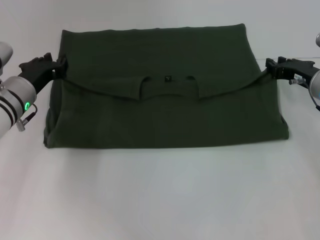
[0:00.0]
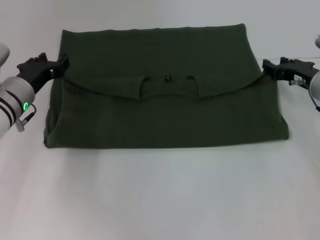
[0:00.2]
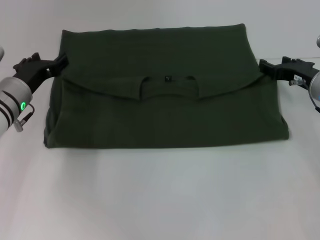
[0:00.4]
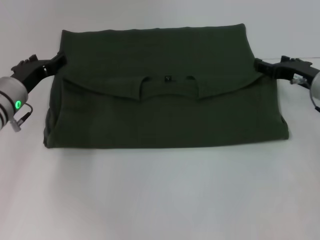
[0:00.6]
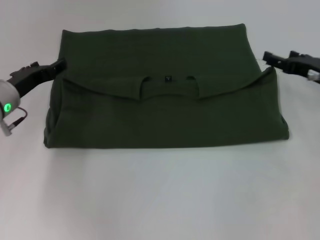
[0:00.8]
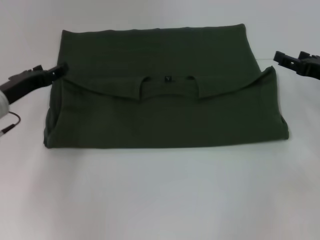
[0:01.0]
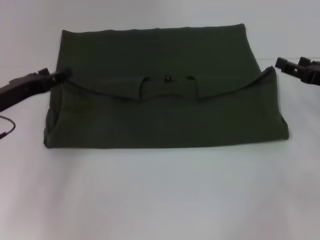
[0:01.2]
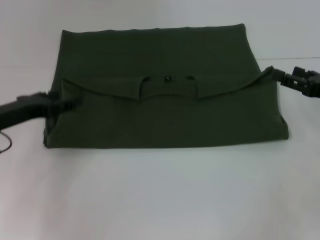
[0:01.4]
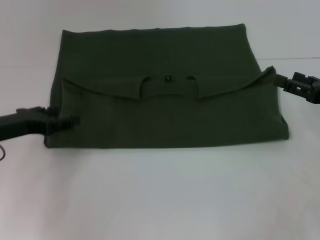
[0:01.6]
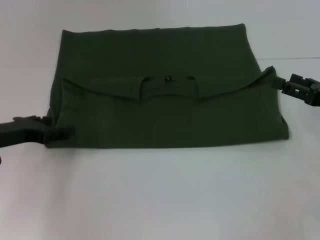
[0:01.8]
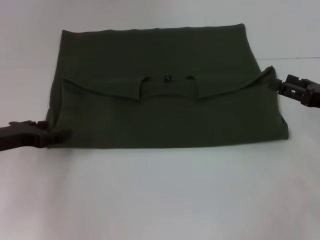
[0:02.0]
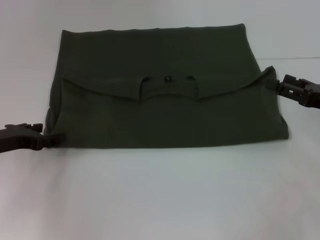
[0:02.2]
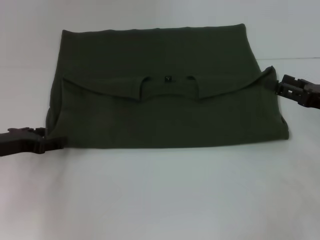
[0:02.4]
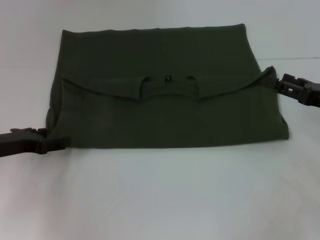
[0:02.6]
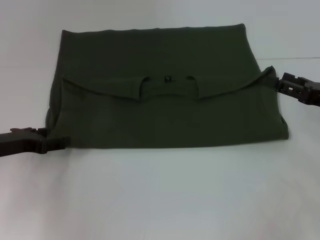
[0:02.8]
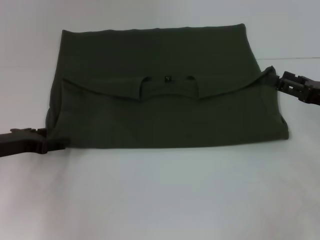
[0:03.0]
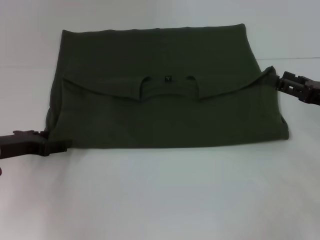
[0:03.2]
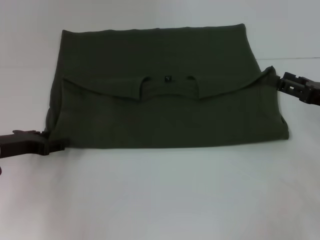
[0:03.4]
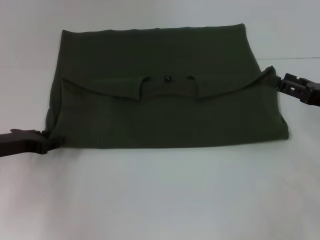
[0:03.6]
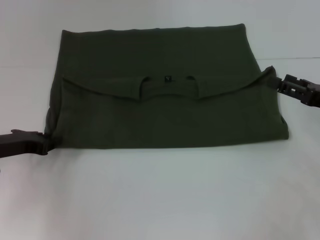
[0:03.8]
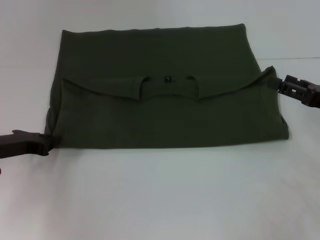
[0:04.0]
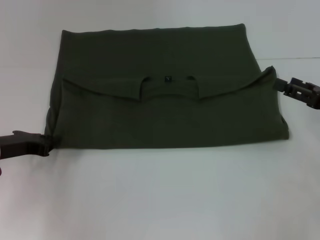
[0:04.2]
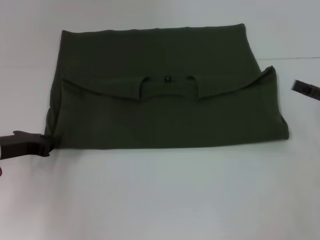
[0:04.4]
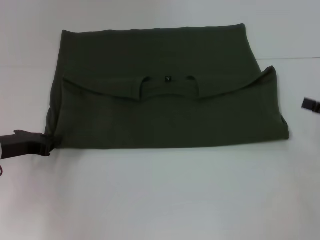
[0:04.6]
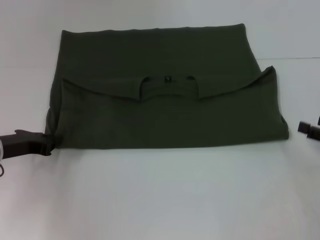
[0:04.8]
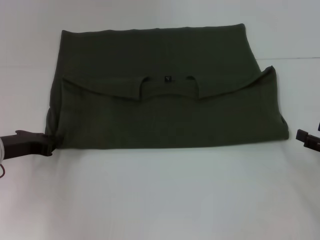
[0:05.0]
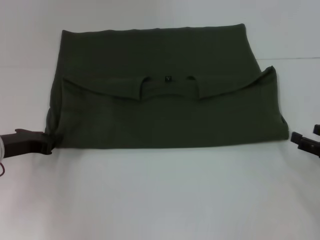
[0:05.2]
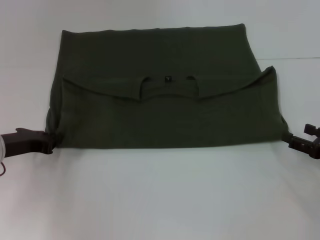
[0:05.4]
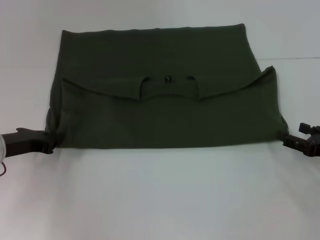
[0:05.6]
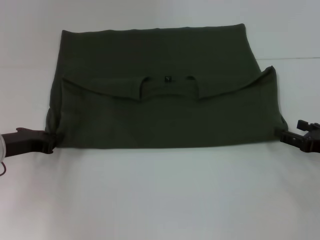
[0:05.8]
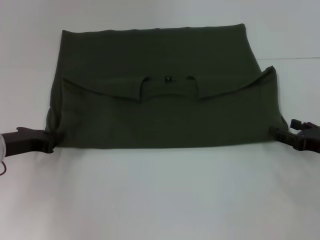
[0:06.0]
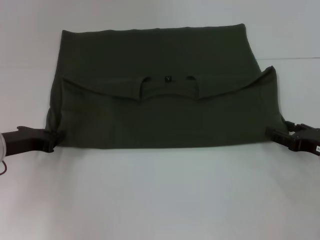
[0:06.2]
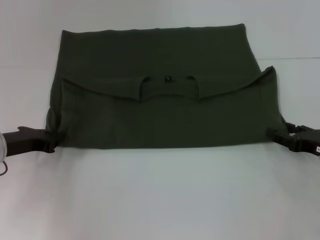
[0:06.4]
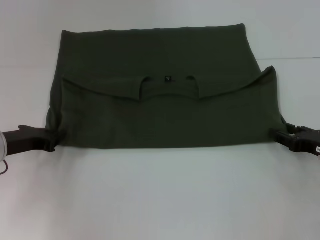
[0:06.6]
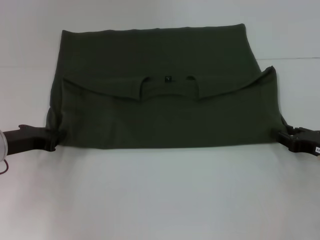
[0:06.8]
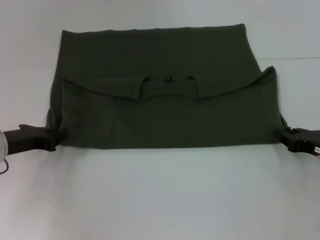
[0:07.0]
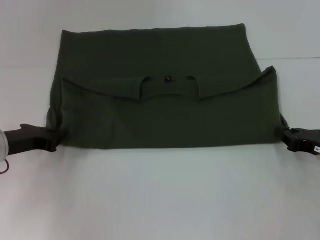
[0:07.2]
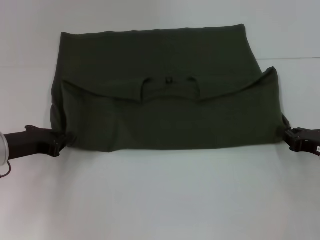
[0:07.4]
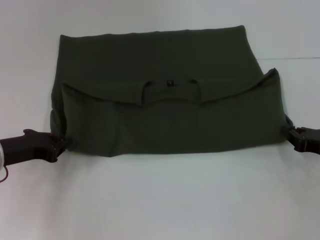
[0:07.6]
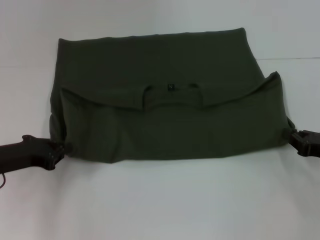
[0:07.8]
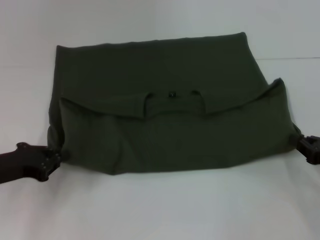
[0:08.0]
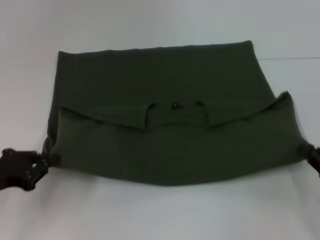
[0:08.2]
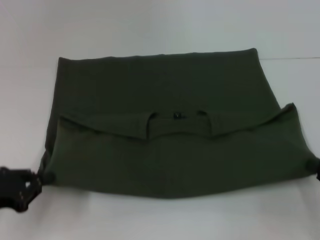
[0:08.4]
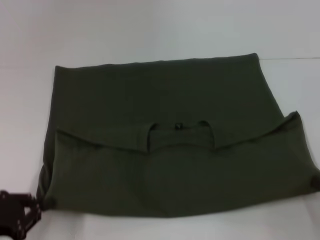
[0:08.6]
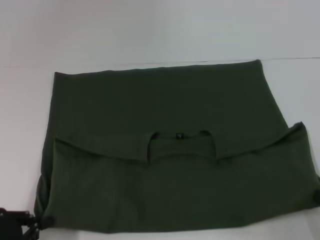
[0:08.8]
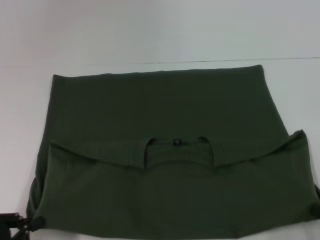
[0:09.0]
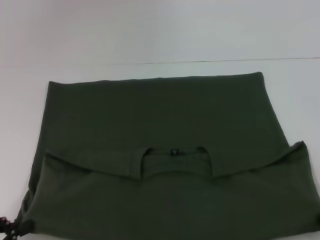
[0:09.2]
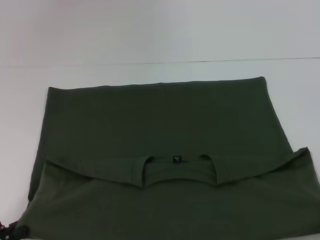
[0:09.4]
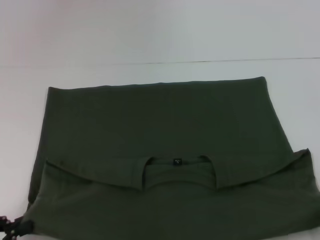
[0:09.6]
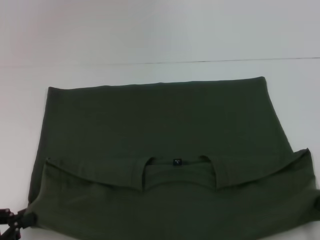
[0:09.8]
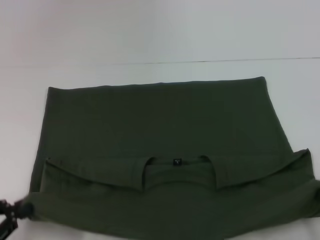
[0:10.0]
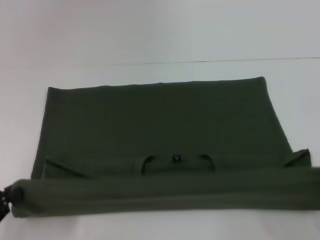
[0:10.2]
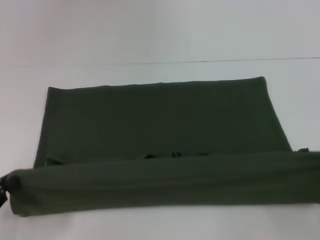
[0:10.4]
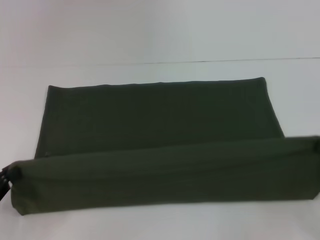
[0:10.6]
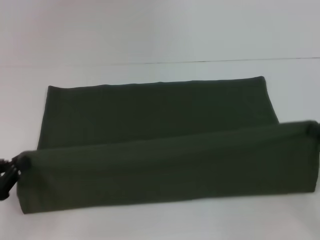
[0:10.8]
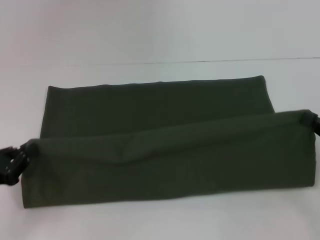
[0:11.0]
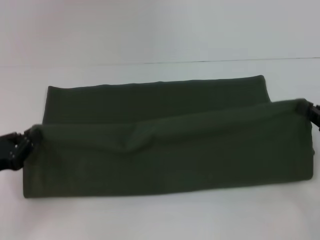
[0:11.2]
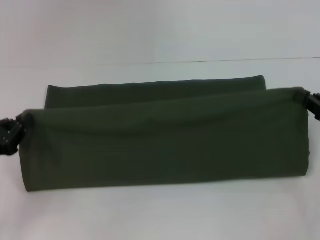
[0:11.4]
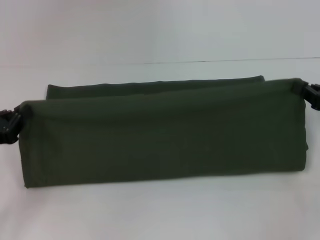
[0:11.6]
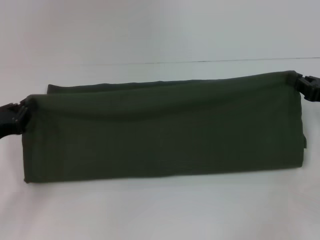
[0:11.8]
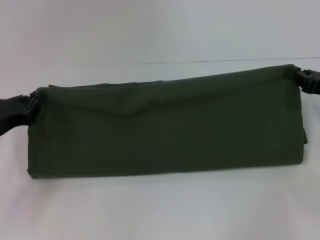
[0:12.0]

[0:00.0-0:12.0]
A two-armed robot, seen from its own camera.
Step, 0:00.2 to 0:09.2: Pull the clothes with your left hand.
Step, 0:00.2 to 0:09.2: Pull the clothes with your right hand.
0:00.0 to 0:01.6: The left gripper goes about 10 cm backward and to the left, and opens. The right gripper is displaced backward and to the right by some 10 cm, and opens its fingers.
0:01.6 to 0:03.0: There are only small adjustments of the grippers.
0:03.0 to 0:04.4: The left gripper closes.
0:04.4 to 0:06.0: The right gripper shifts about 5 cm downward.
0:06.0 to 0:07.6: The right gripper closes its fingers.
0:07.6 to 0:09.0: The two grippers go roughly 15 cm backward.
0:09.0 to 0:10.4: The right gripper shifts by some 5 cm.
0:10.4 to 0:12.0: Both grippers move forward, approximately 15 cm.

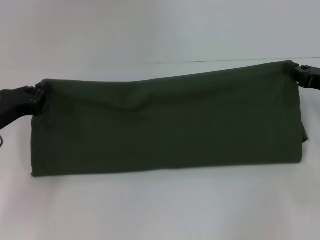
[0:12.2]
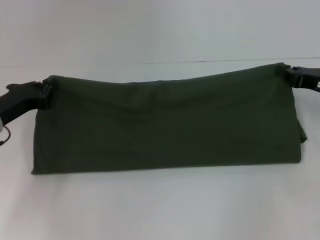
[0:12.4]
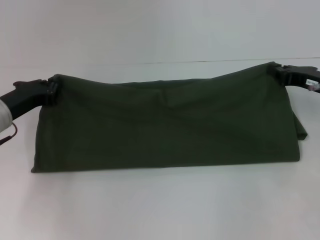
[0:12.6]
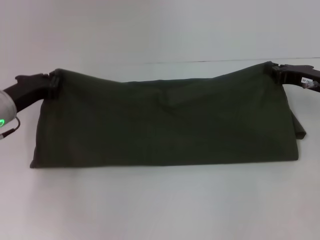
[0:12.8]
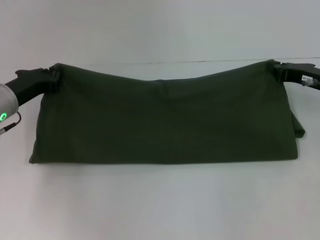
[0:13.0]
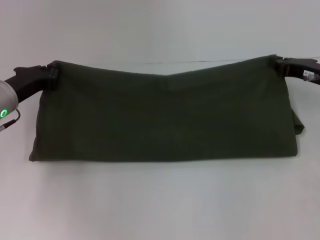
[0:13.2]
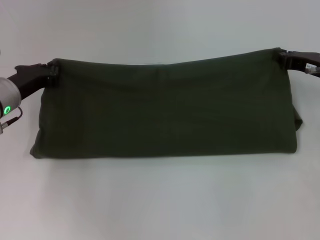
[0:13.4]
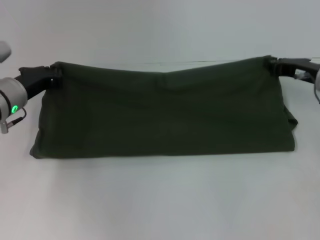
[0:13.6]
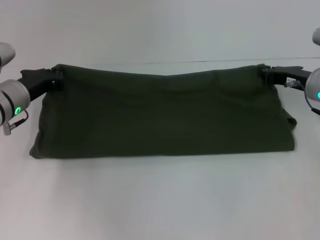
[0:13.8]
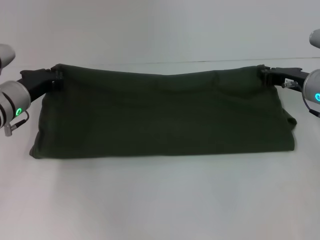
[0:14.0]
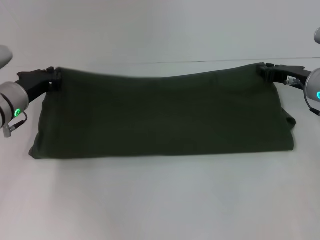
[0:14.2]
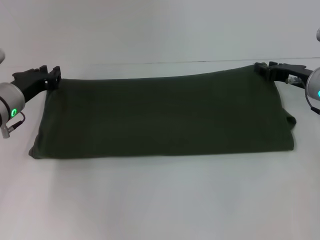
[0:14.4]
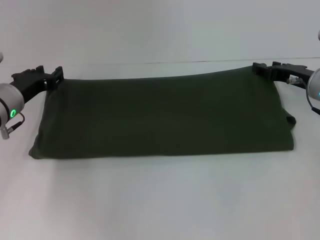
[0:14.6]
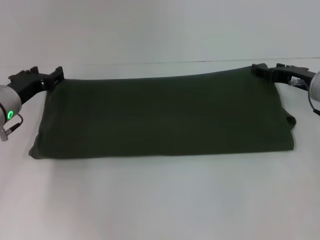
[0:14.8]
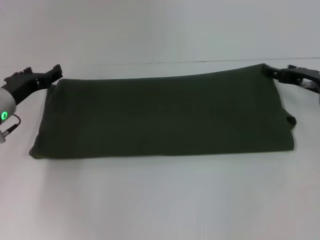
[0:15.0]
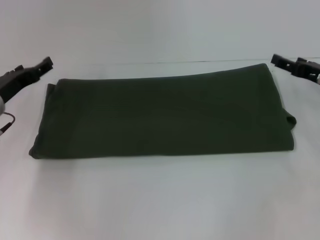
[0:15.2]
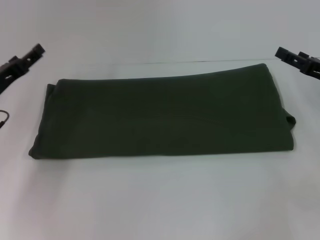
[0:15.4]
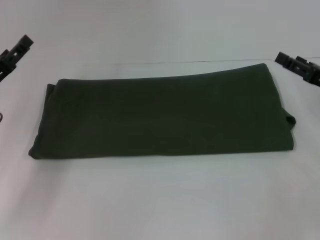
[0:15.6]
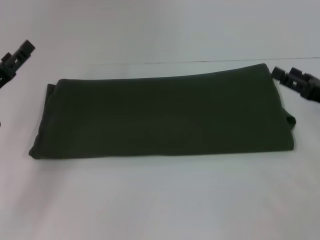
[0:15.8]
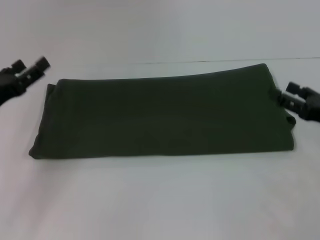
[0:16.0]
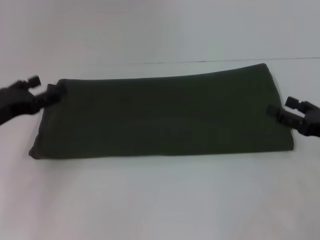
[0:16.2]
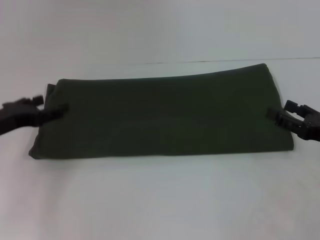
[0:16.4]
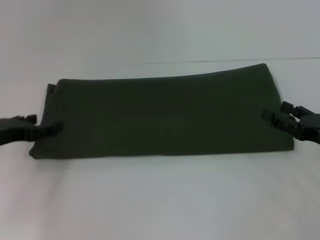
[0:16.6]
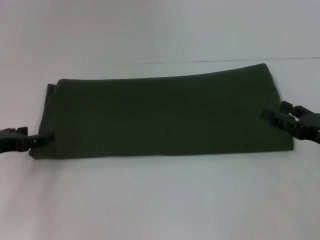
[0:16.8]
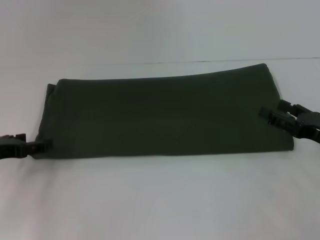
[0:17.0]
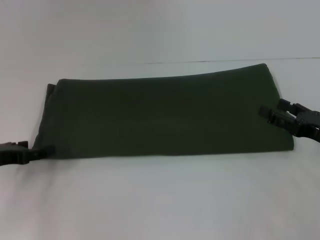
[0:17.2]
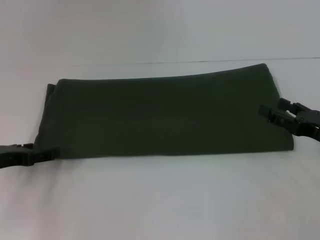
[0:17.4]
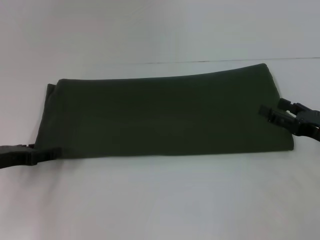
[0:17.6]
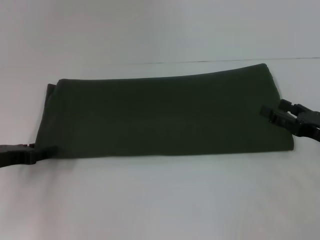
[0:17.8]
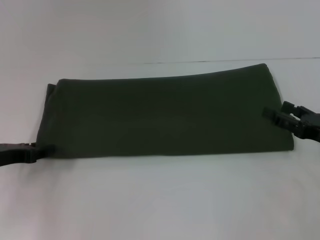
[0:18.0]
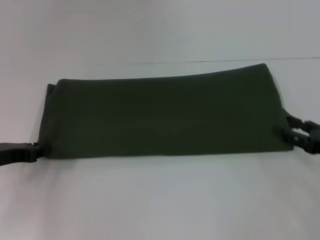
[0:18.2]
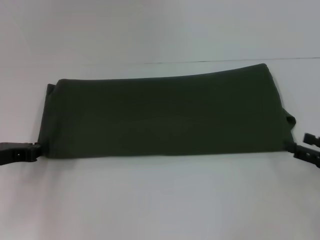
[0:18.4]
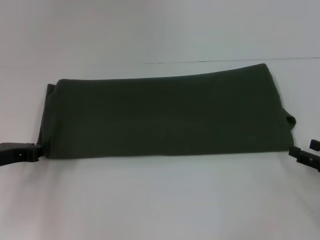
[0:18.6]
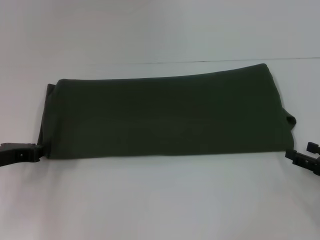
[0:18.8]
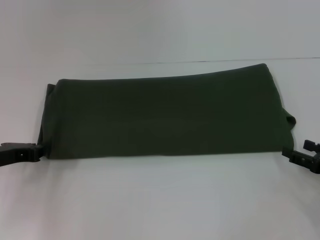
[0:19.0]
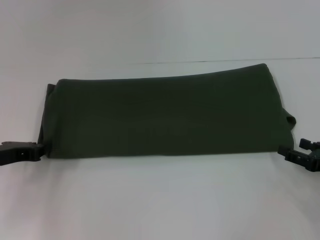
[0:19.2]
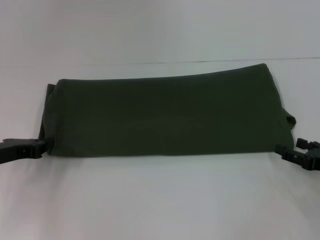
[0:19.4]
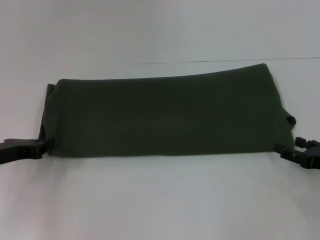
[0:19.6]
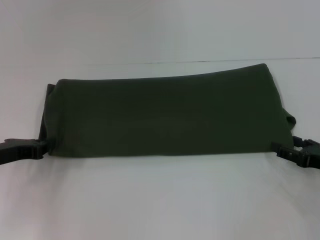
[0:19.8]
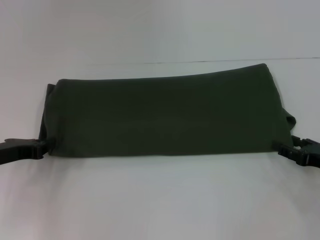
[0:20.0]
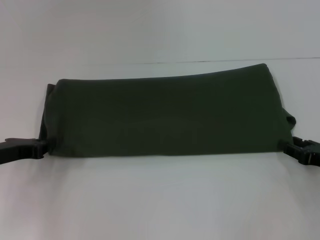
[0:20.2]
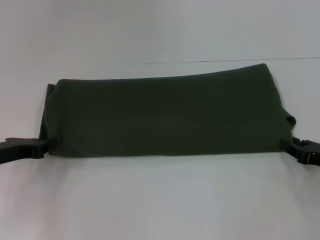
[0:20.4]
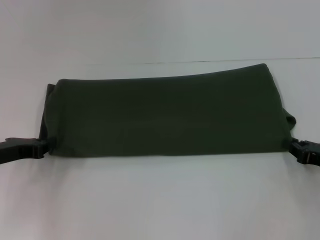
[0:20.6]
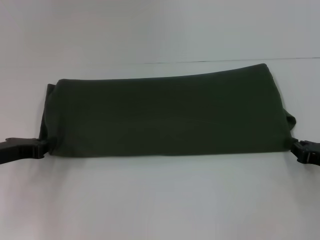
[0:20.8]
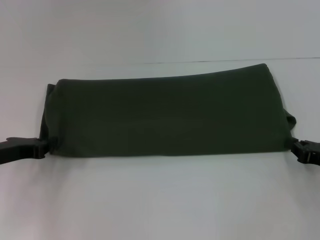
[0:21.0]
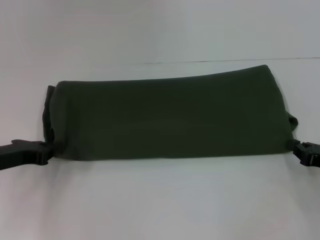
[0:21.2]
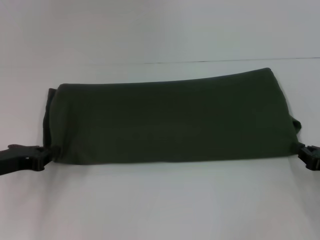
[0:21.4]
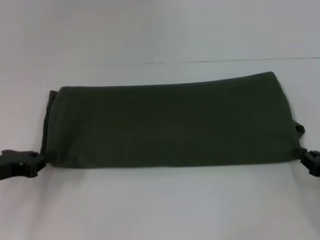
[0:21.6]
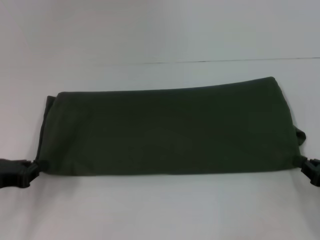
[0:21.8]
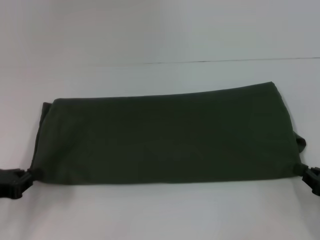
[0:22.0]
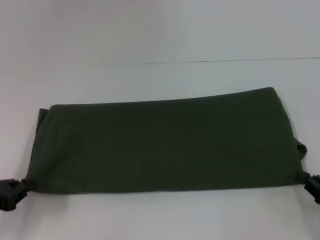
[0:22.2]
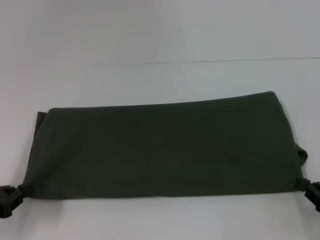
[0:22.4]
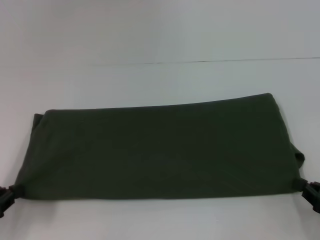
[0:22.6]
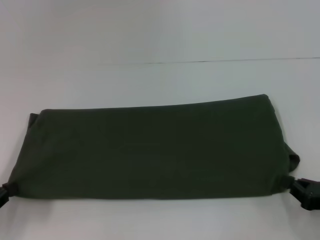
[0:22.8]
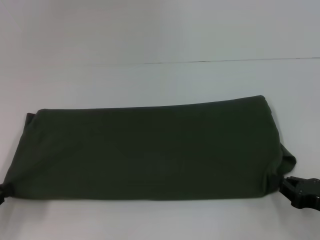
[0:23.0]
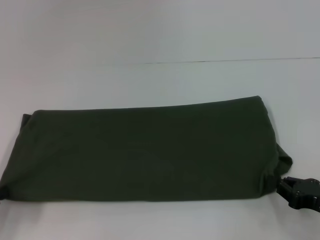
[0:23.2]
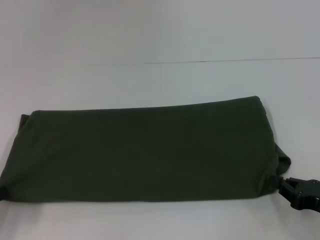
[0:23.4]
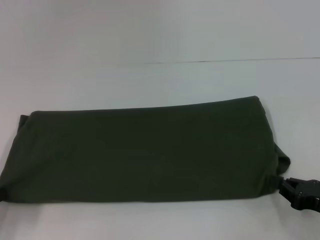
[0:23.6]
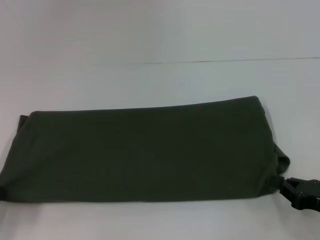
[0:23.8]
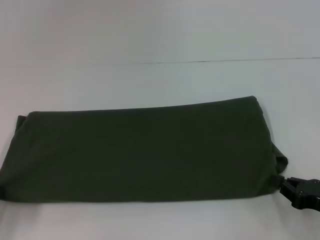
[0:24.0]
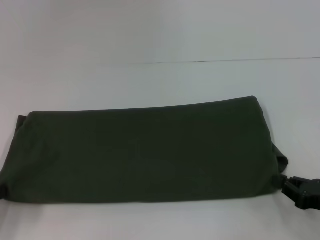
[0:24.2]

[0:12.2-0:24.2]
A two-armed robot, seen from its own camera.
Step, 0:12.2 to 0:14.4: Fold the clothes with your left hand.
Step, 0:12.2 to 0:14.4: Fold the clothes with your right hand.
0:12.2 to 0:13.8: The right gripper is displaced to the left and forward by about 10 cm; the left gripper is displaced forward by some 5 cm.
0:13.8 to 0:15.2: The left gripper opens its fingers. Meanwhile the right gripper shifts by approximately 5 cm, and opens.
0:15.2 to 0:16.6: The left gripper travels backward by about 5 cm. The right gripper moves backward, approximately 10 cm.
0:16.6 to 0:18.2: The left gripper closes its fingers.
0:18.2 to 0:19.8: The left gripper closes up.
0:19.8 to 0:21.2: The right gripper closes up.
0:21.2 to 0:22.6: The right gripper is displaced backward by some 10 cm. The left gripper moves backward and to the left, about 10 cm.
0:22.6 to 0:24.2: There are only small adjustments of the grippers.
